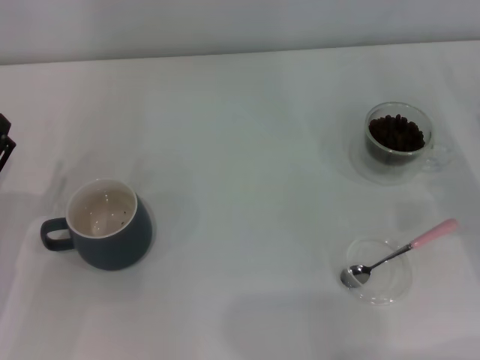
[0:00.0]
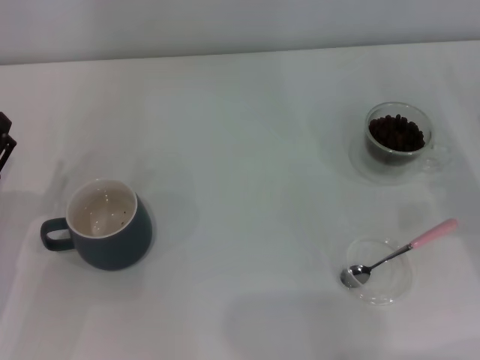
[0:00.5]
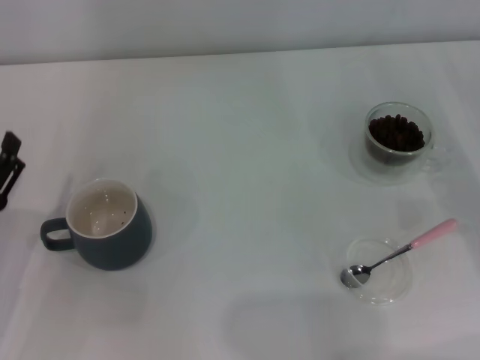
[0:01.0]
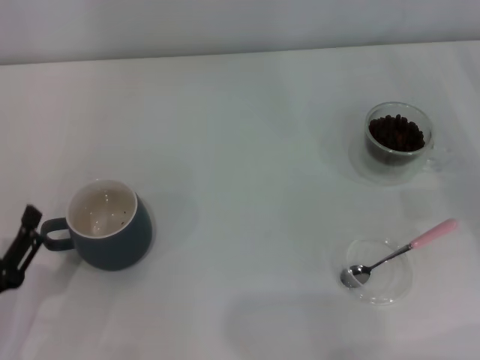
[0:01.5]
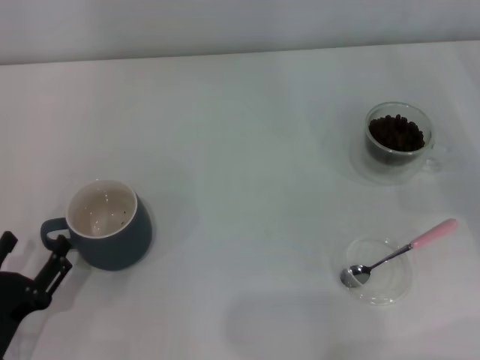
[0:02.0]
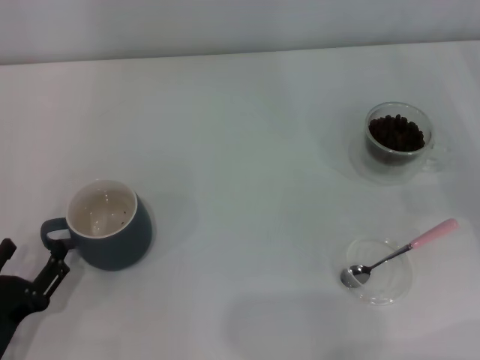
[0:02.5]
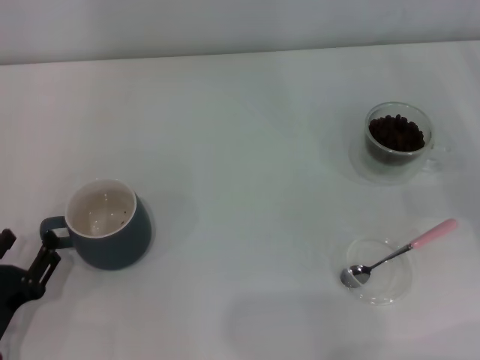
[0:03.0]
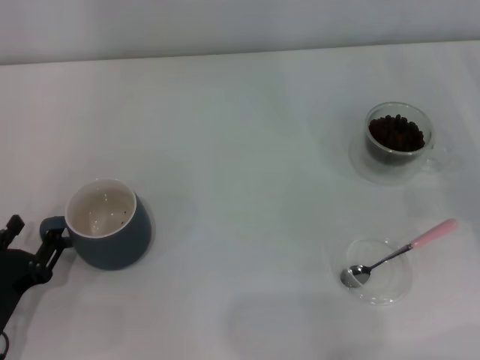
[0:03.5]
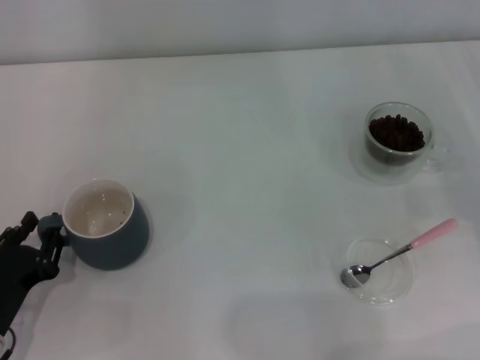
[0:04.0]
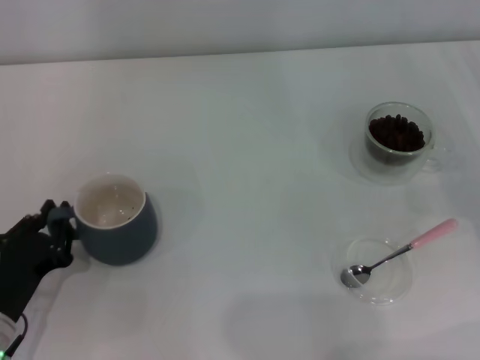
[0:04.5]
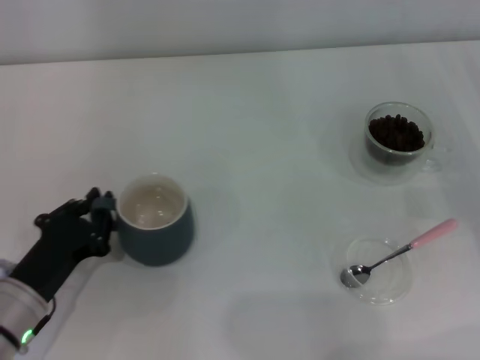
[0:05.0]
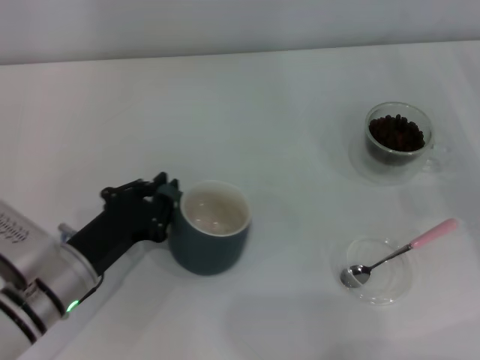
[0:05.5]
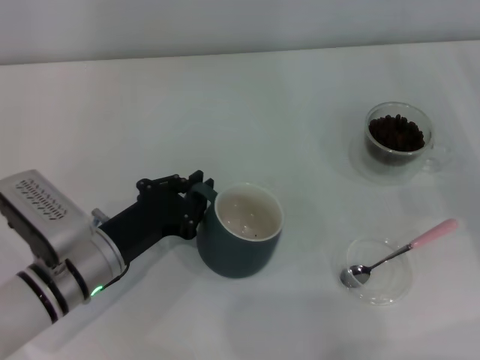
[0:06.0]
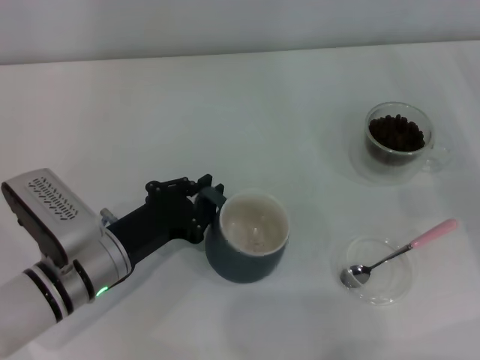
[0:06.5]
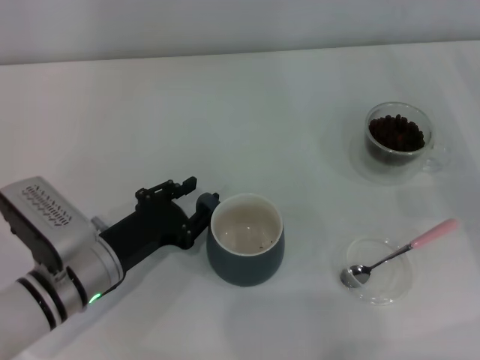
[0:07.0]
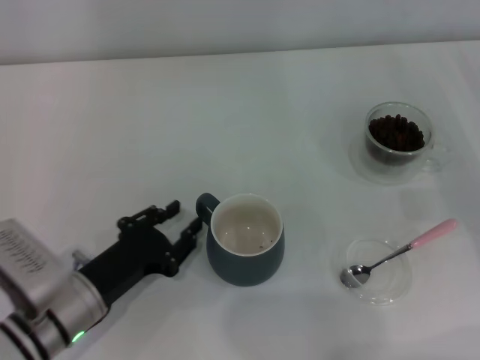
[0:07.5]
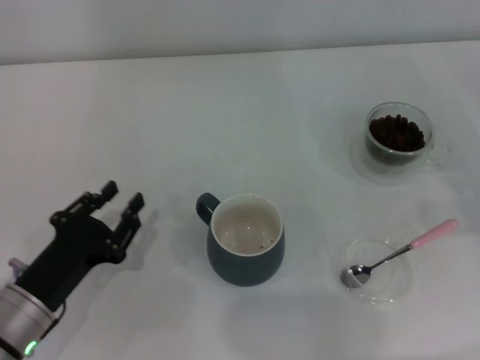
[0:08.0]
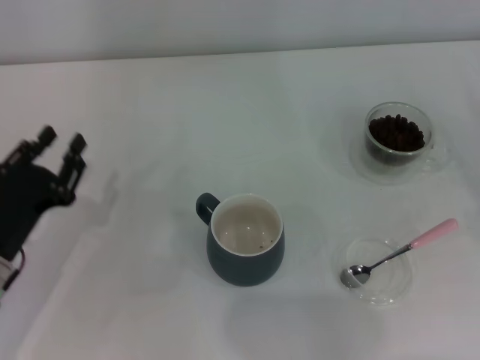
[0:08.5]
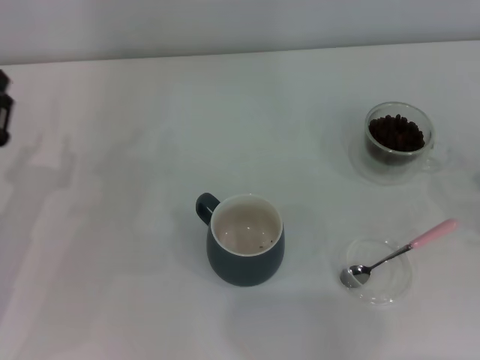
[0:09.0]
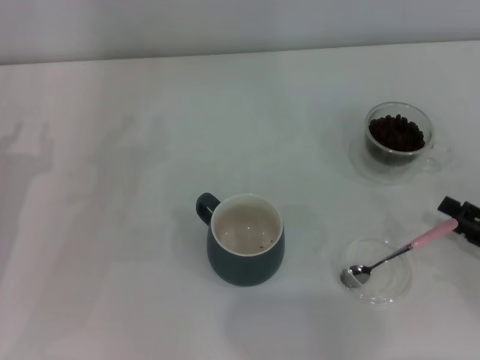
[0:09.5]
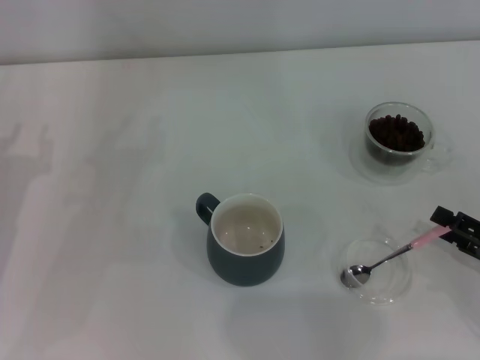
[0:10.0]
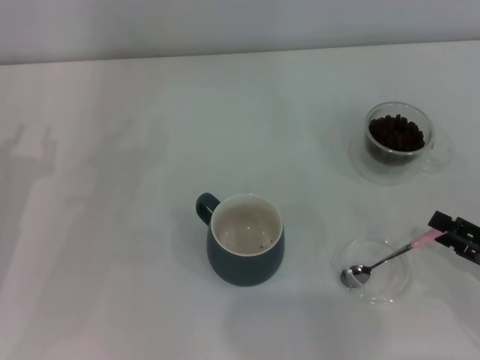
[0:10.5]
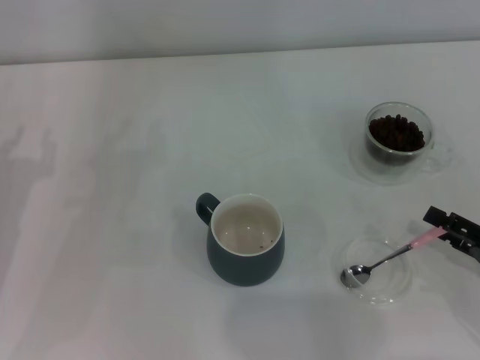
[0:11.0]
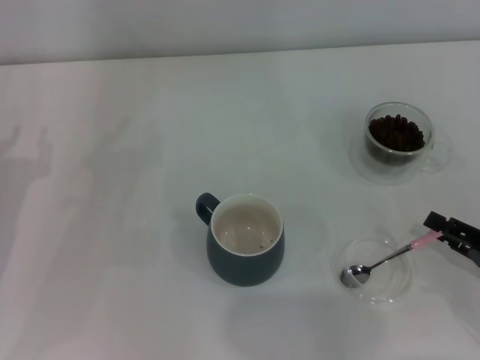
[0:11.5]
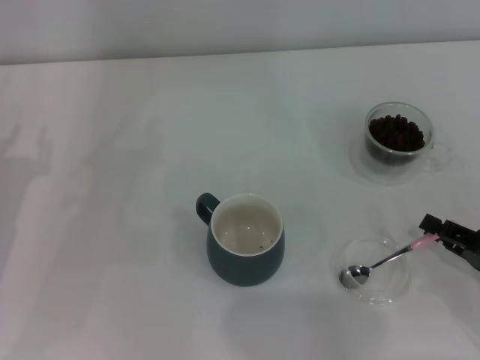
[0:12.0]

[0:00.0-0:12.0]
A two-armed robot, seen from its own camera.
Task of the whole recording: Use a pink spoon to take out the coffee beans from the glass and pour them into the gray cup.
Step, 0:00.0 to 0:07.5: Move the cup to the center of view with the left gripper.
0:00.0 to 0:02.0: The left gripper is displaced backward by approximately 10 cm.
0:02.0 to 0:04.0: The left gripper closes.
0:04.0 to 0:06.0: The left gripper heads to the right and forward, covering roughly 15 cm.
0:06.0 to 0:08.0: The left gripper goes some 10 cm to the left and backward, and opens.
0:08.0 to 0:10.0: The left gripper goes roughly 10 cm forward, to the left and upward; the right gripper heads backward and to the left, covering some 10 cm.
0:10.0 to 0:12.0: The right gripper closes.

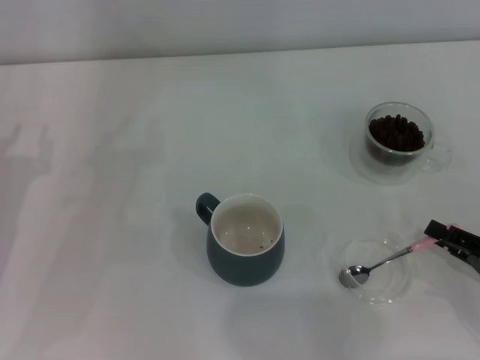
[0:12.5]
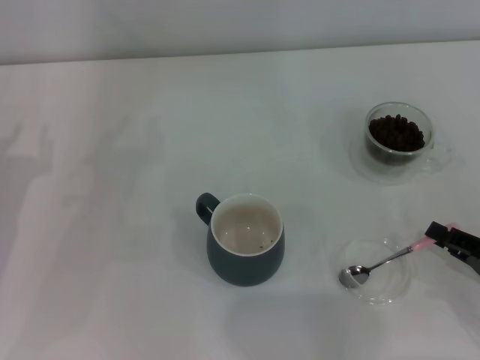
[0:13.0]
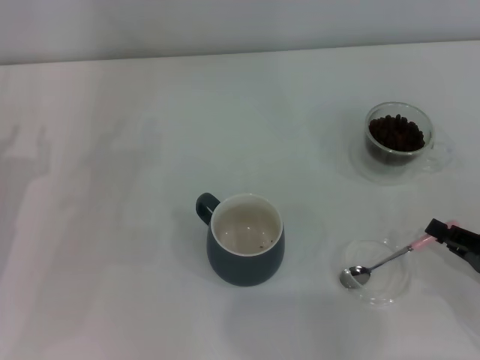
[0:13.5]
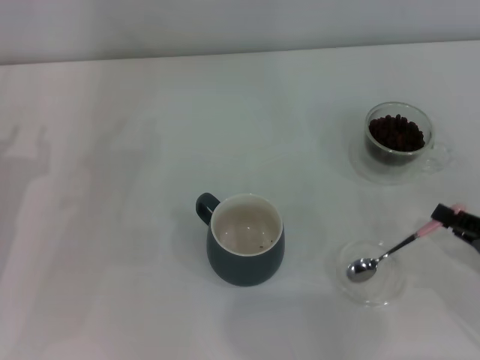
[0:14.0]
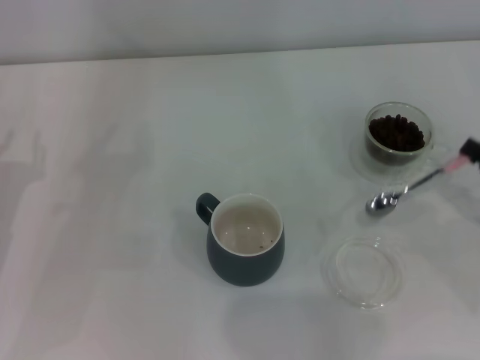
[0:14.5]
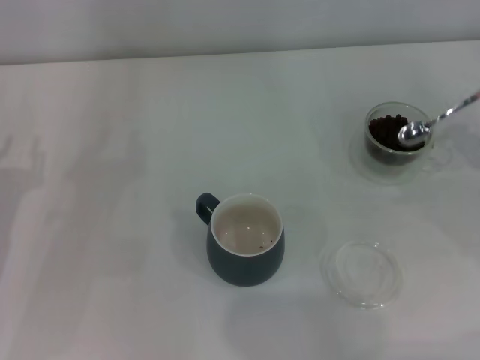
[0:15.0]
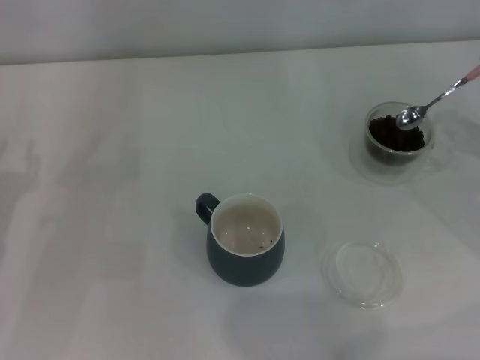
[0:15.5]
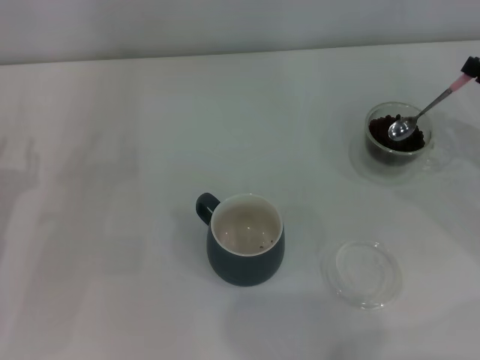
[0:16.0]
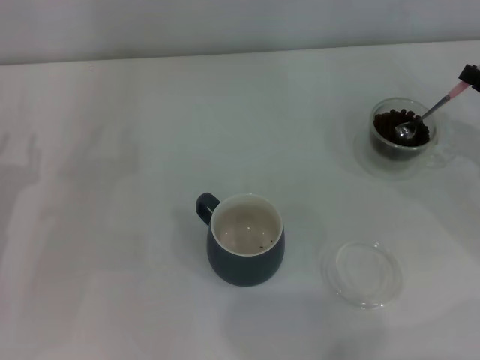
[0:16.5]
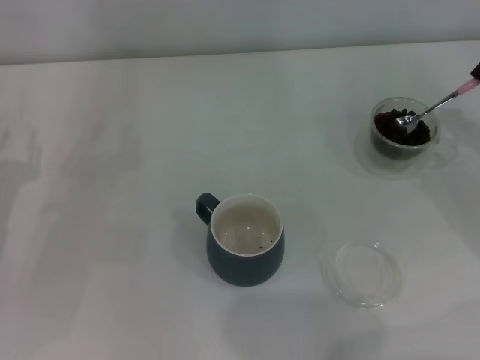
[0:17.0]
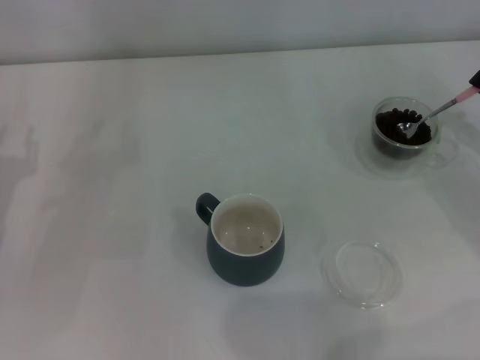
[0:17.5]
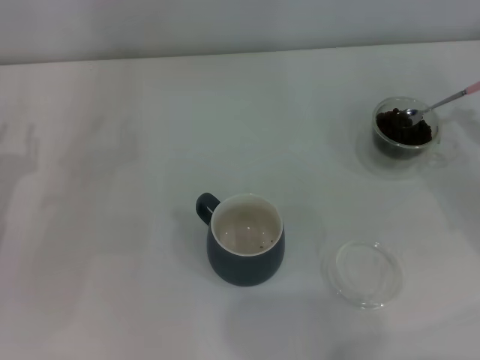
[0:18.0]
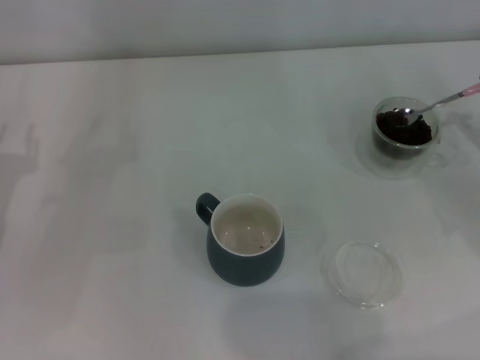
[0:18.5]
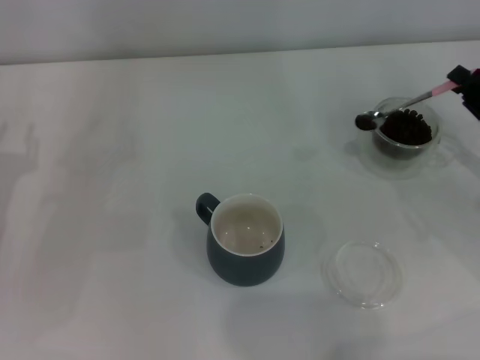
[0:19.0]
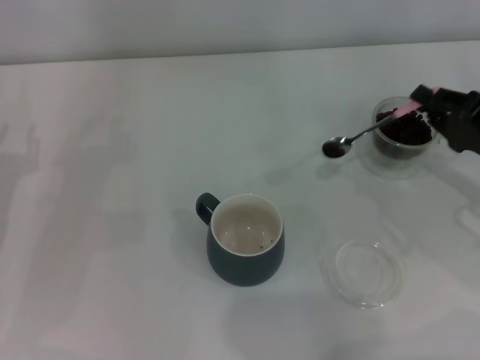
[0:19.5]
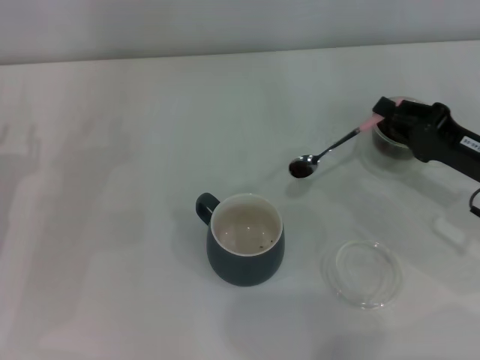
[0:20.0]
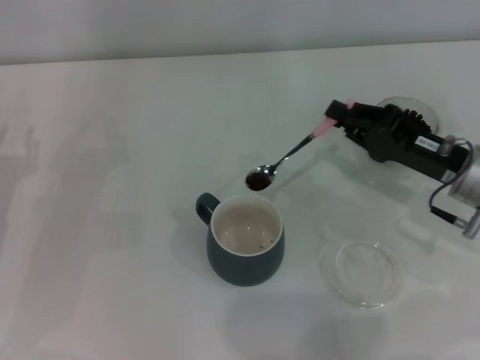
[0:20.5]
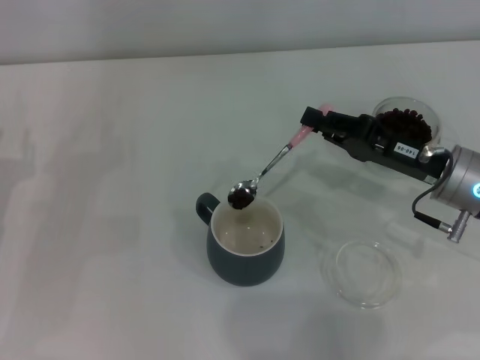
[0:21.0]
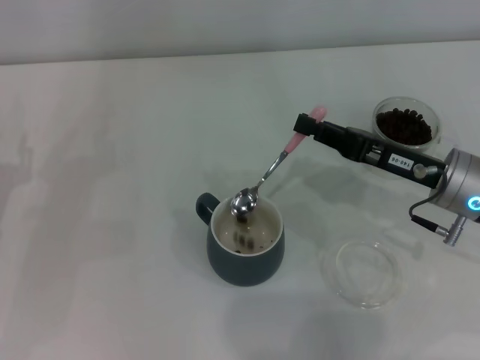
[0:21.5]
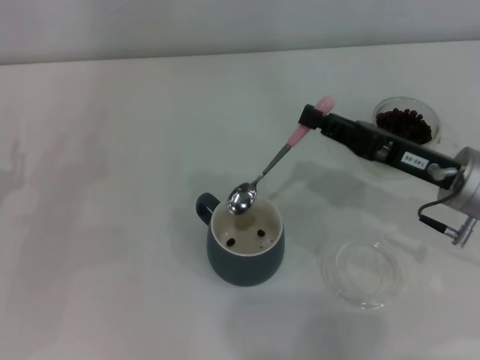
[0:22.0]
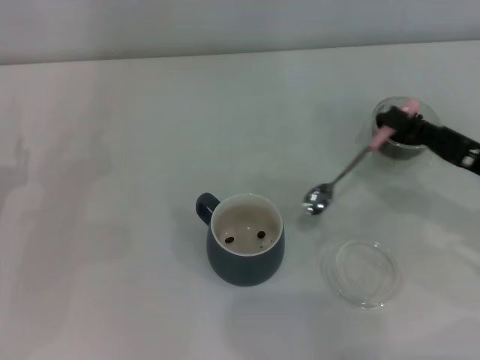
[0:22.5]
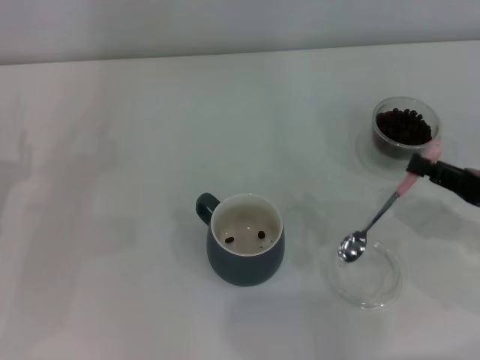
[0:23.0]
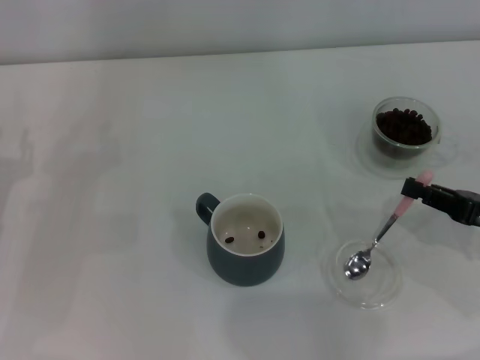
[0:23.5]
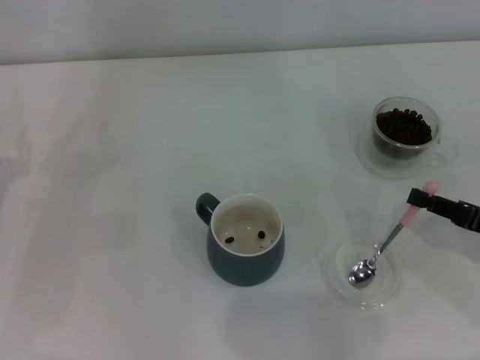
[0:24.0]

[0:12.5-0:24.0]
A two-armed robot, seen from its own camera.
Task of the whole recording: Use a pink spoon to take out the coffee beans from the glass and pour them into the gray cup.
Step, 0:15.0 to 0:22.0: Scoop a spoonful of beans into the cup with the right gripper.
0:12.5 to 0:14.5: The right gripper shifts by approximately 5 cm.
0:14.5 to 0:16.5: The right gripper travels forward by roughly 10 cm.
0:18.5 to 0:20.0: The right gripper shifts about 10 cm to the left.
0:20.0 to 0:22.0: The right gripper moves to the left, some 5 cm.
0:22.0 to 0:24.0: The right gripper goes about 10 cm to the right and backward.

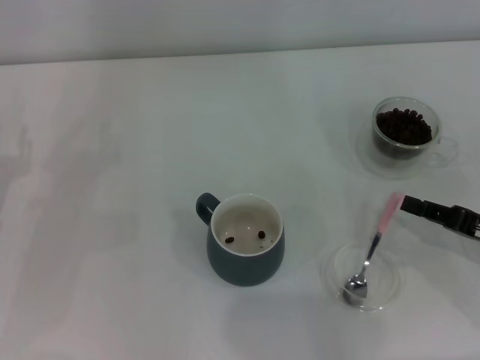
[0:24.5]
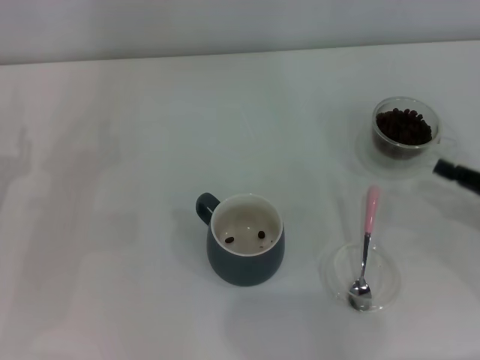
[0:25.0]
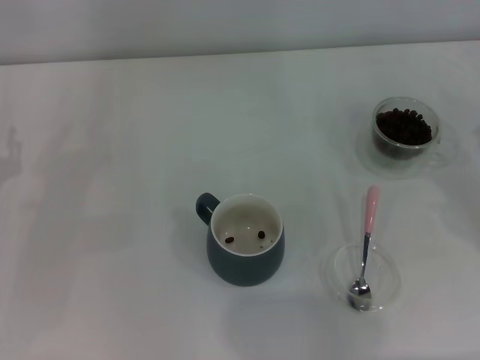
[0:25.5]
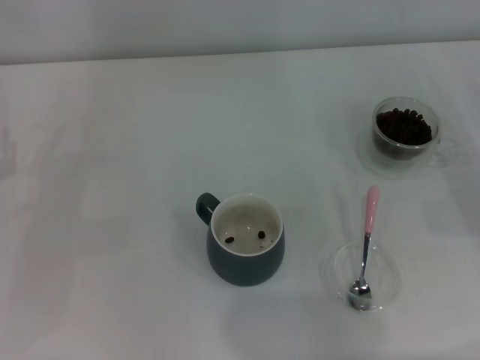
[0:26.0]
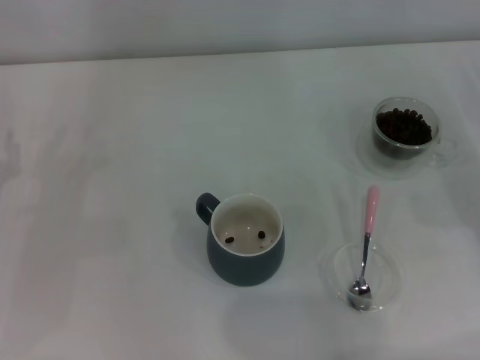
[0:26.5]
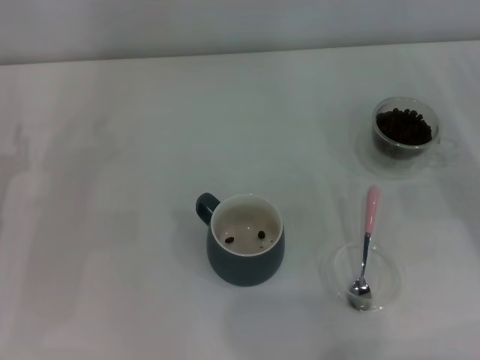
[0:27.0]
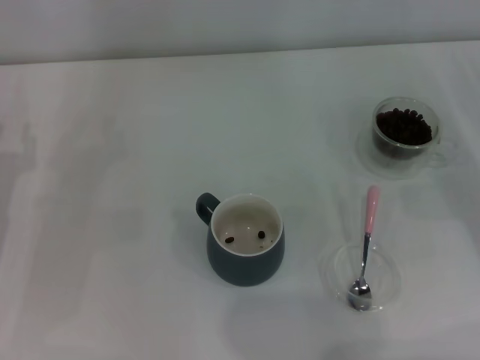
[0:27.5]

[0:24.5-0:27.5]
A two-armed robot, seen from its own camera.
Task of the whole recording: Use a pink spoon to take out the coffee beans from the glass and pour them into the gray cup.
0:24.5 to 0:26.0: The right gripper heads to the right, covering roughly 5 cm.
